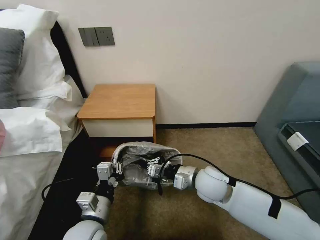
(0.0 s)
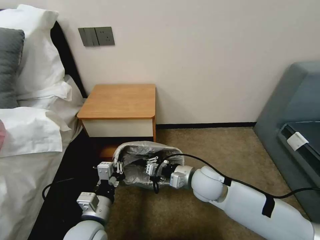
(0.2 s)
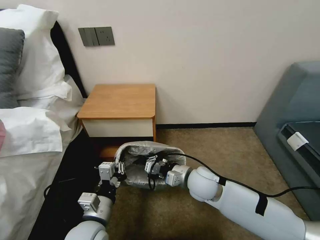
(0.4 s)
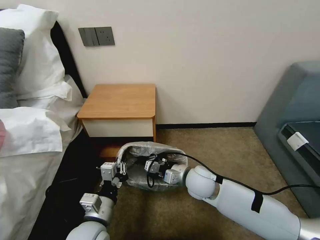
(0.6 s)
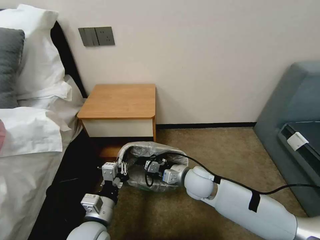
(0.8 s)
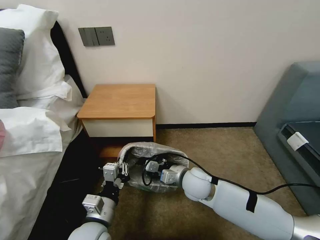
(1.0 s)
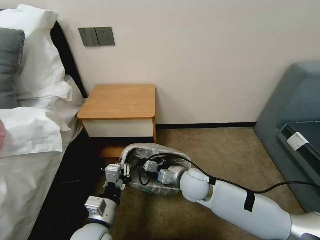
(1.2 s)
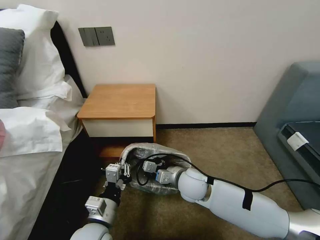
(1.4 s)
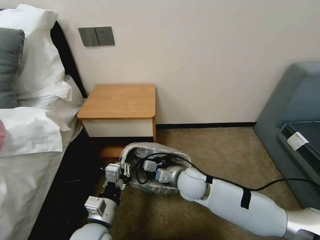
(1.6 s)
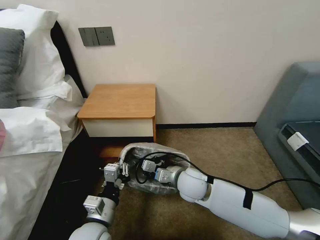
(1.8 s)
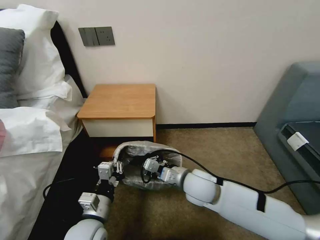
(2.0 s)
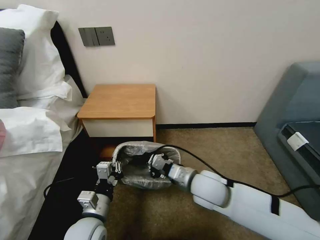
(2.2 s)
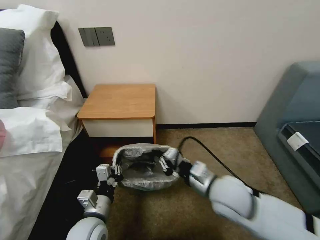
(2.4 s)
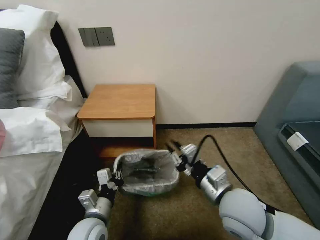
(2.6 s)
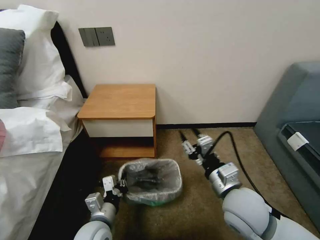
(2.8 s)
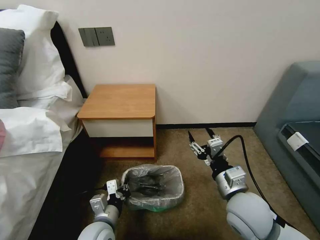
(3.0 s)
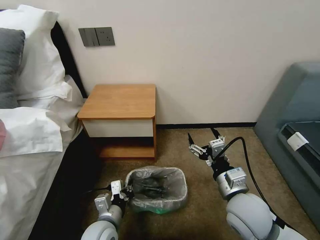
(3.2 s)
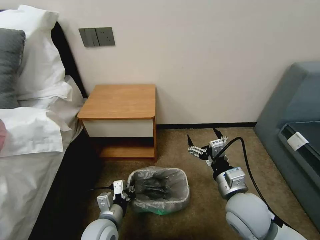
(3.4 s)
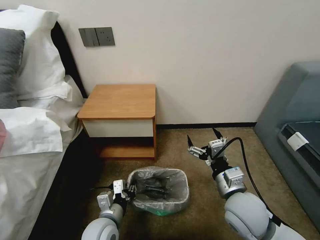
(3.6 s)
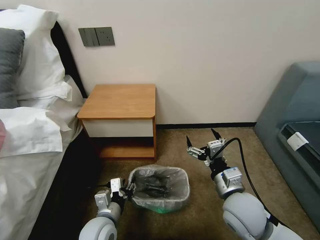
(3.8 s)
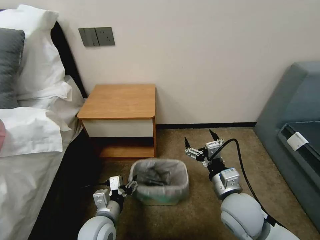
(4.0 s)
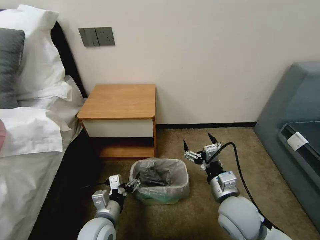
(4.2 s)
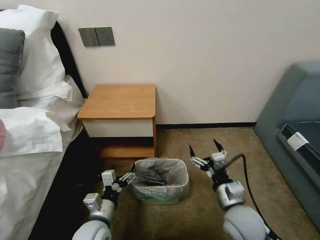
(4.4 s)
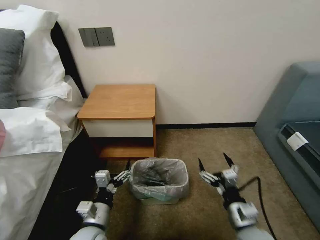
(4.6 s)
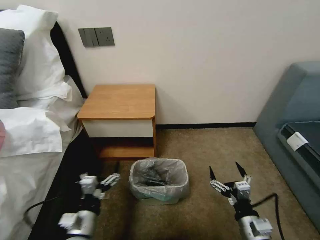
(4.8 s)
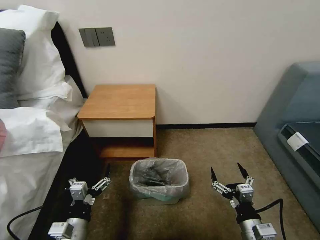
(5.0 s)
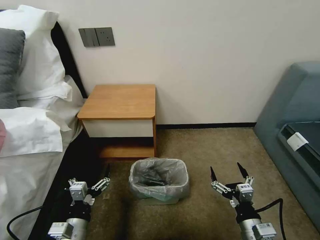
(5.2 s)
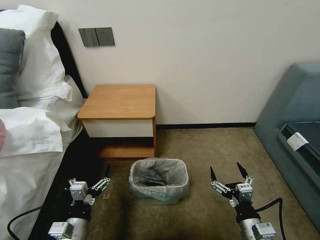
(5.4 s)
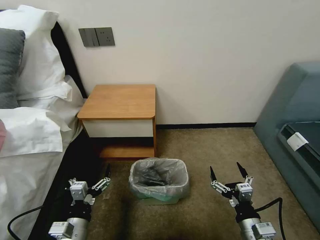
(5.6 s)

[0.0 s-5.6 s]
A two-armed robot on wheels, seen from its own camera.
Task of the whole recording: Pick up the garbage bag from the table and place it over the trash can.
0.0 to 1.4 s: The right gripper ends up about 5 cm from where it was.
1.4 to 2.8 s: The right gripper heads backward, upward and to the right, covering roughly 15 cm, and opens.
2.8 to 4.2 s: The right gripper is displaced downward by approximately 5 cm, and opens; the left gripper opens.
4.2 to 5.6 s: The left gripper heads to the left and backward, covering some 10 cm. The right gripper moves backward, downward and to the right, approximately 15 cm.

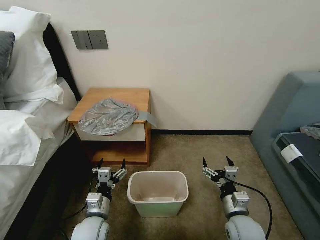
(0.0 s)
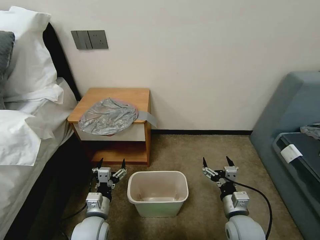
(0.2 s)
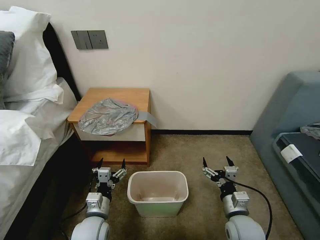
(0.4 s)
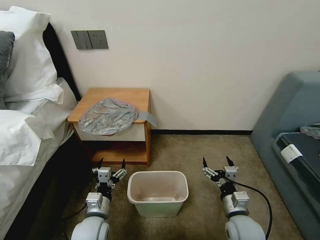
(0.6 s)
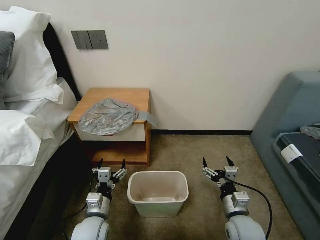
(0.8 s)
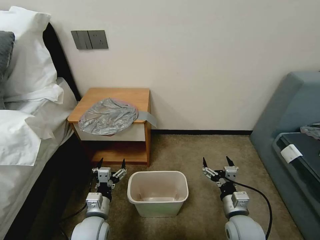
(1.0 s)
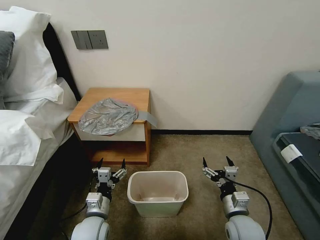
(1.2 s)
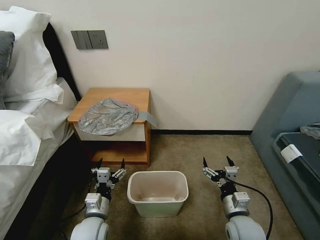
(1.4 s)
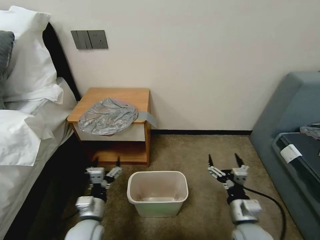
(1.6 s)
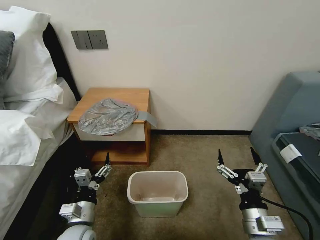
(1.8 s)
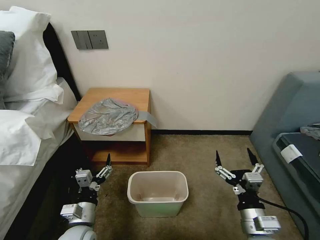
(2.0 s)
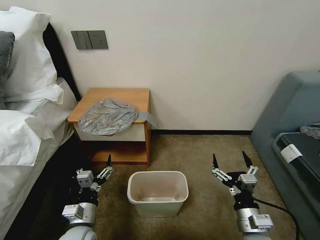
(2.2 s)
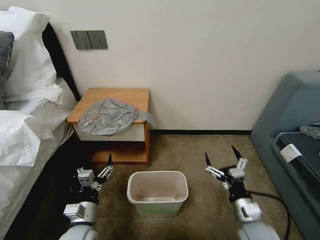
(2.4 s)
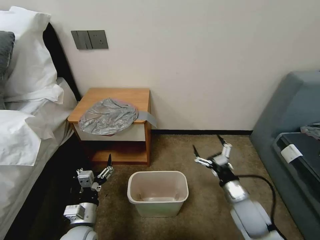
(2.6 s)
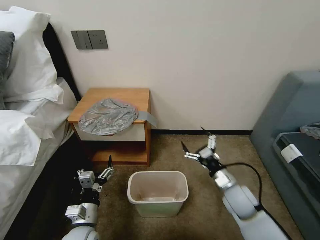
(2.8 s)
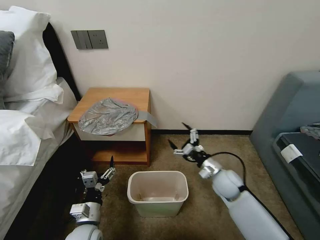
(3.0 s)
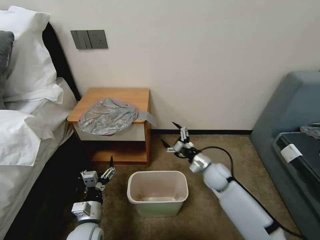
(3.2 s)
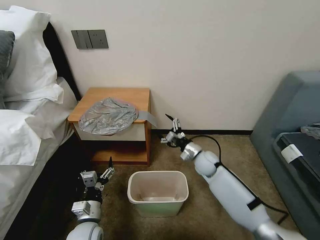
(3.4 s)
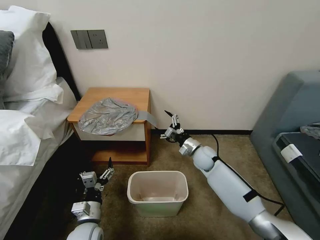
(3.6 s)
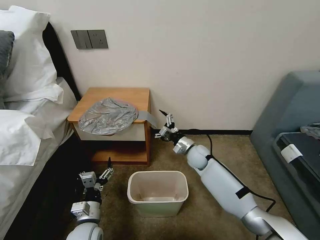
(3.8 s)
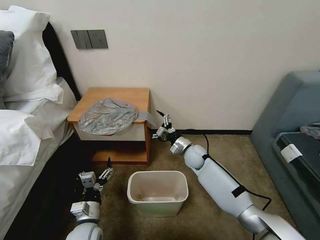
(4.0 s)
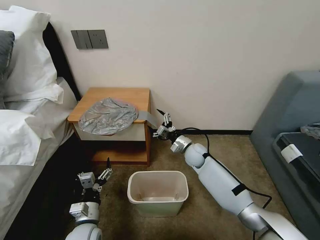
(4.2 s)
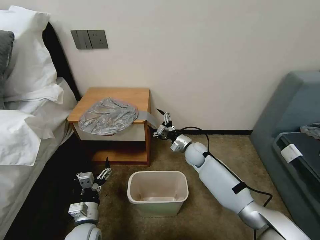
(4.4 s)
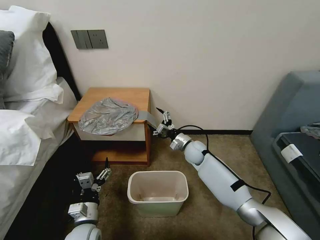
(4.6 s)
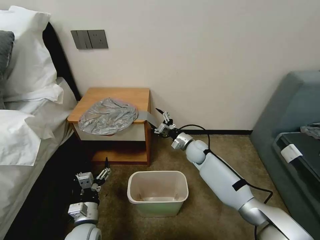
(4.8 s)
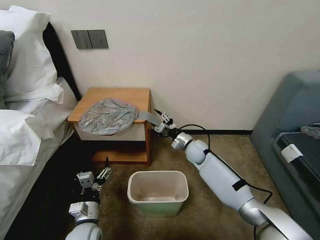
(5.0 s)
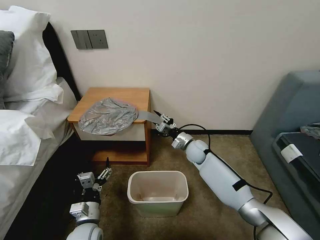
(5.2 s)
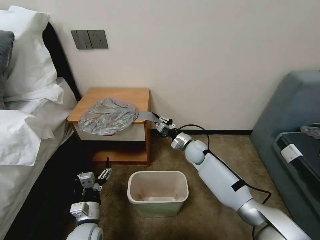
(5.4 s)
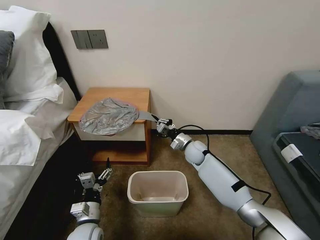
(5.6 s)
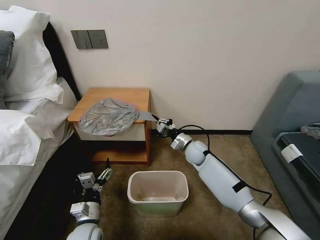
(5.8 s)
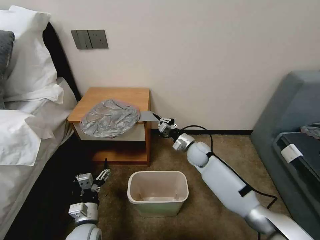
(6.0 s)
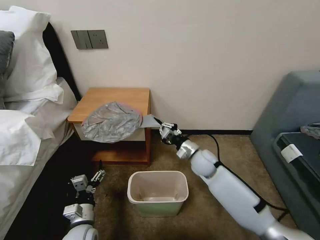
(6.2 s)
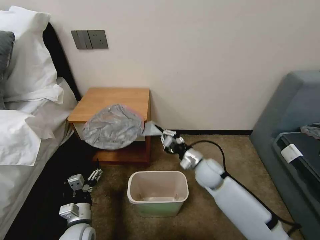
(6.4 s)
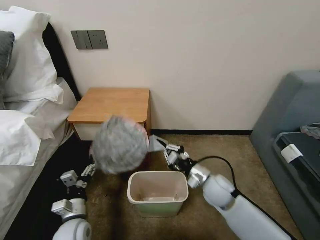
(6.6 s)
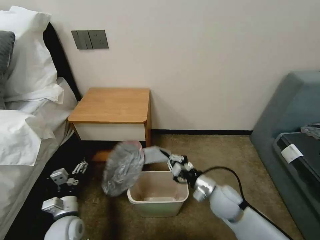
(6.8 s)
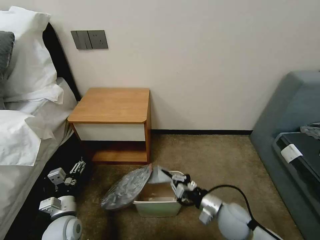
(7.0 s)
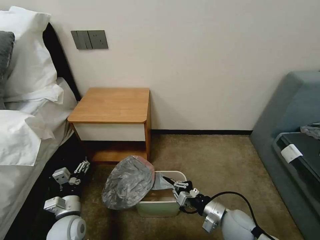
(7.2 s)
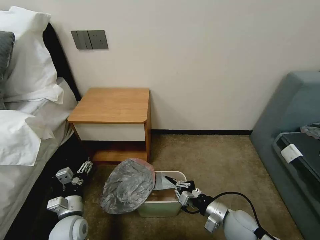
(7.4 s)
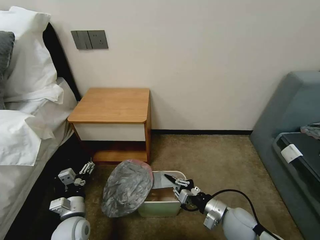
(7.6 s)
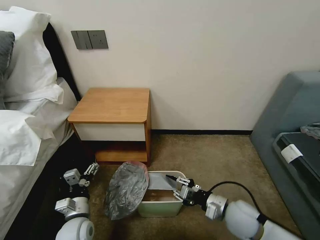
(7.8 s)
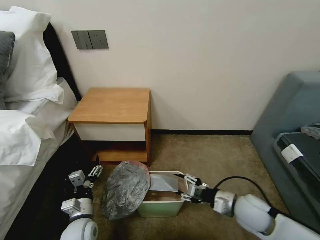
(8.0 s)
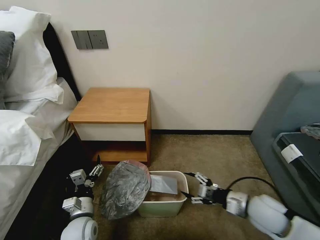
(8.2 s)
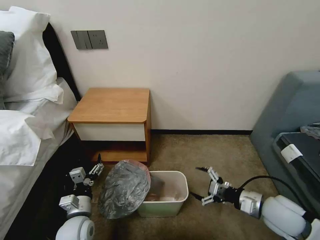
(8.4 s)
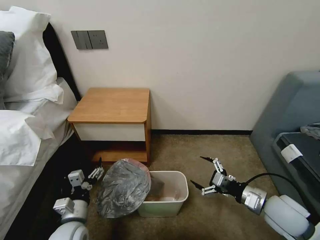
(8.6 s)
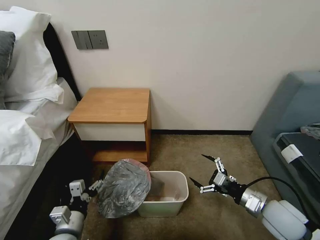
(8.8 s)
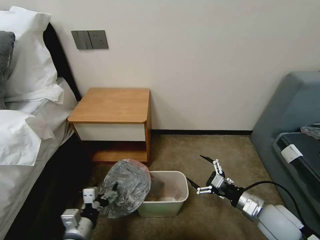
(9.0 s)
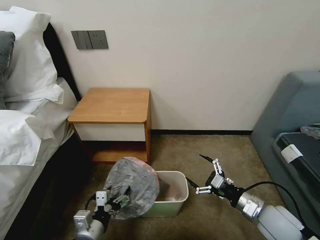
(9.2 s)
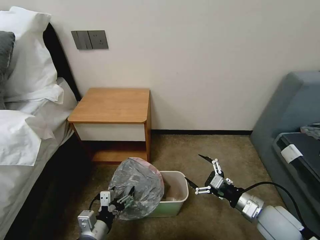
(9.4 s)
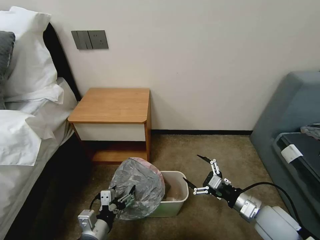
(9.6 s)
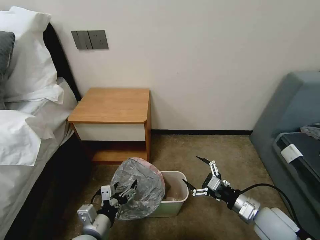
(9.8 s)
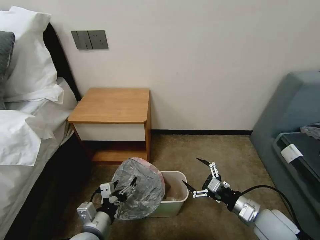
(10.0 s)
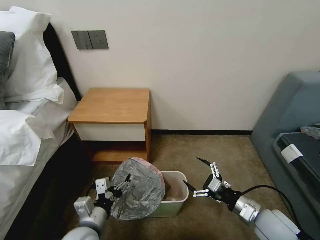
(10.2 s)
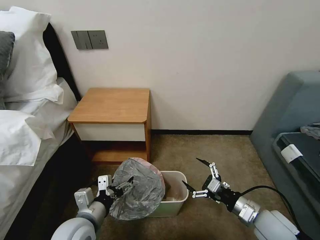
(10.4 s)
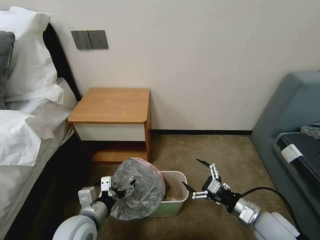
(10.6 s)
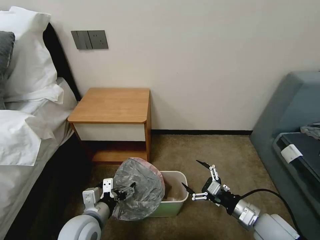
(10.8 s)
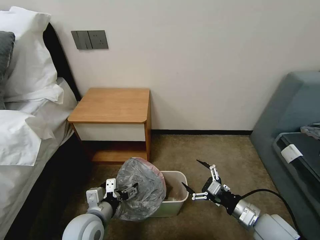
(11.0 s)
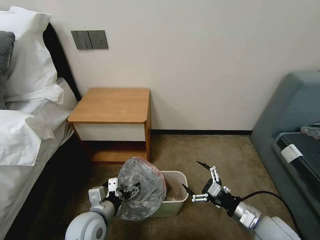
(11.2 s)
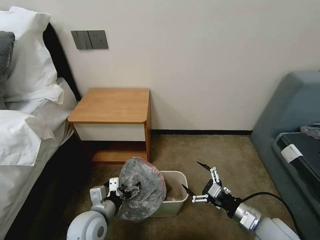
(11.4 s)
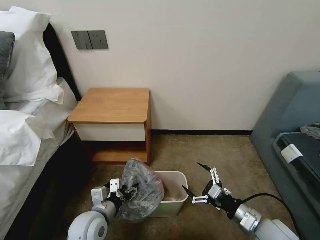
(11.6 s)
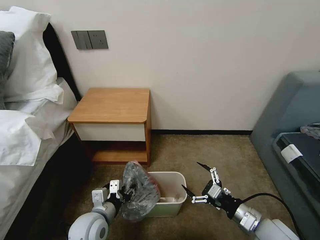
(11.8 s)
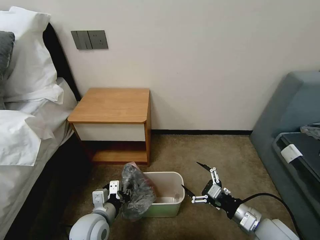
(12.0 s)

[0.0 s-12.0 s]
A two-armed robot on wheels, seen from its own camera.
Task of the whole recording: Pick up the garbage bag from the table and place it over the trash can.
1.6 to 3.0 s: The right gripper is displaced forward by about 15 cm.
3.0 to 4.4 s: The right gripper heads forward and to the left, covering roughly 15 cm.
4.4 to 6.0 s: The right gripper closes up.
6.0 to 7.6 s: The right gripper moves backward, roughly 25 cm.
7.6 to 9.0 s: The left gripper is displaced backward by about 5 cm, while the right gripper moves to the right and upward, about 10 cm, and opens.
9.0 to 10.4 s: The left gripper is displaced upward by about 5 cm.
10.4 to 12.0 s: The left gripper changes place by some 5 cm, and closes.

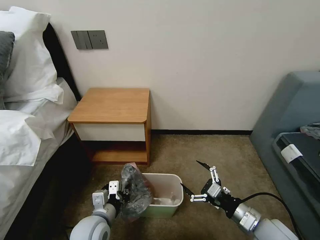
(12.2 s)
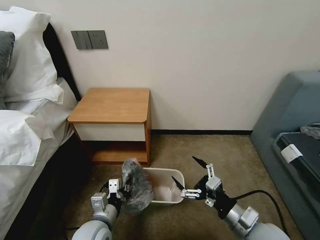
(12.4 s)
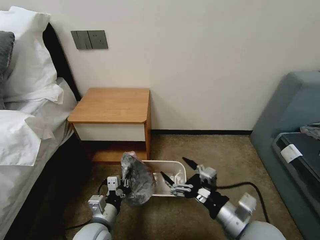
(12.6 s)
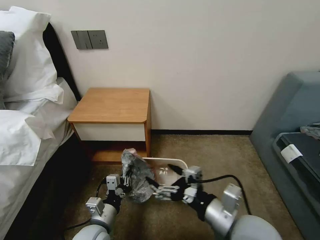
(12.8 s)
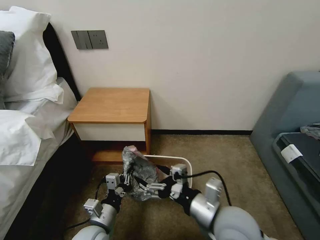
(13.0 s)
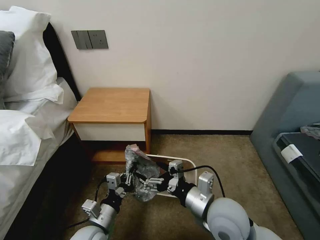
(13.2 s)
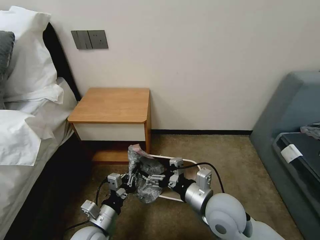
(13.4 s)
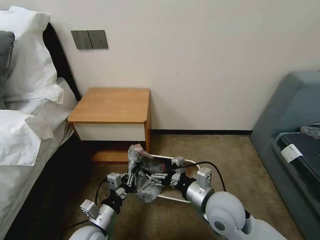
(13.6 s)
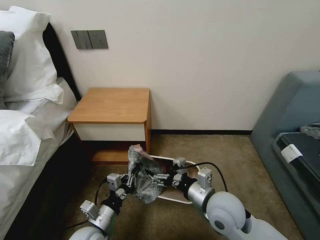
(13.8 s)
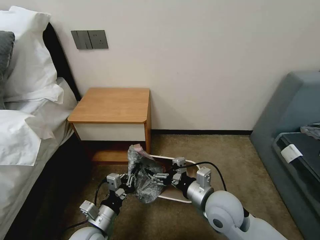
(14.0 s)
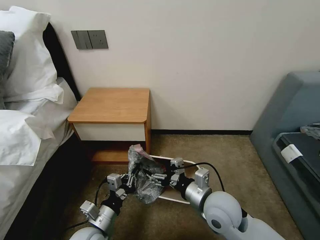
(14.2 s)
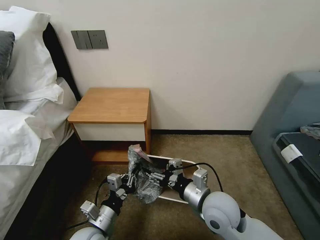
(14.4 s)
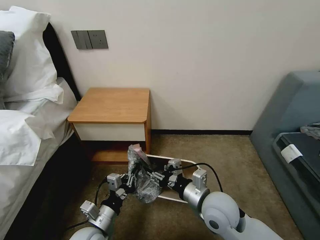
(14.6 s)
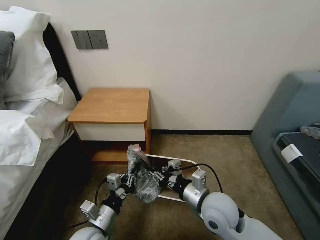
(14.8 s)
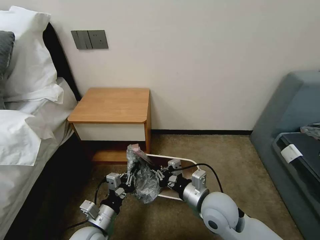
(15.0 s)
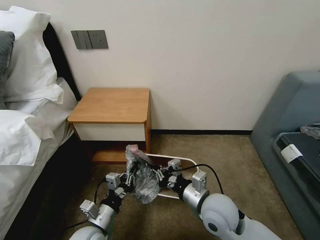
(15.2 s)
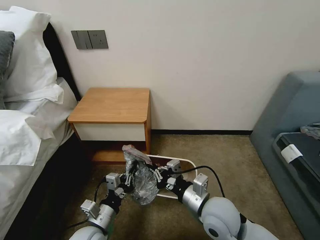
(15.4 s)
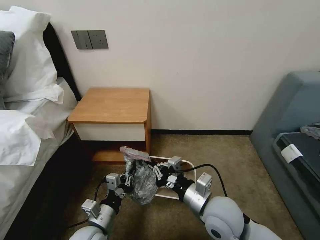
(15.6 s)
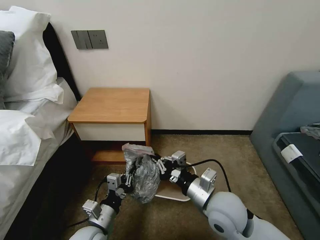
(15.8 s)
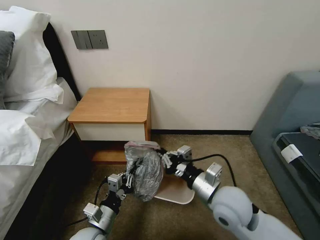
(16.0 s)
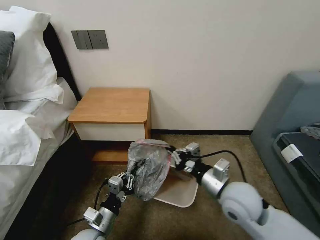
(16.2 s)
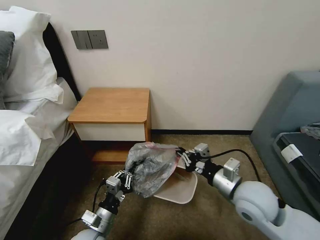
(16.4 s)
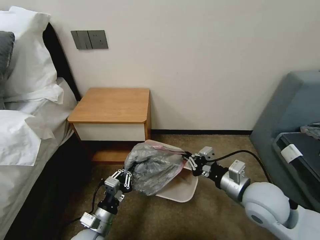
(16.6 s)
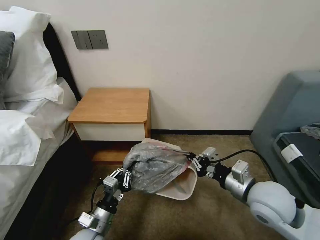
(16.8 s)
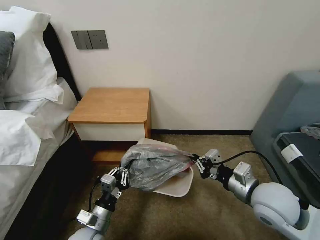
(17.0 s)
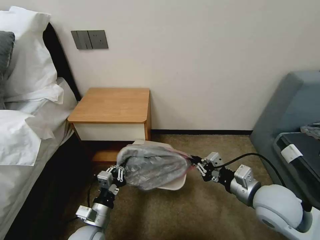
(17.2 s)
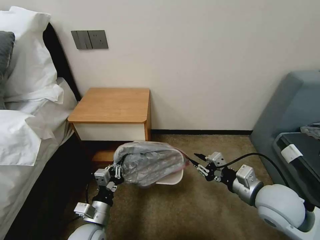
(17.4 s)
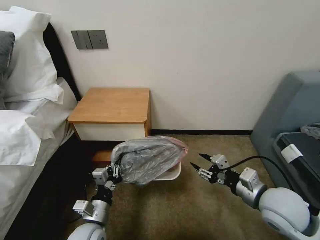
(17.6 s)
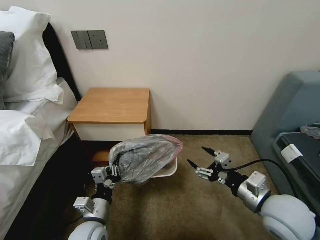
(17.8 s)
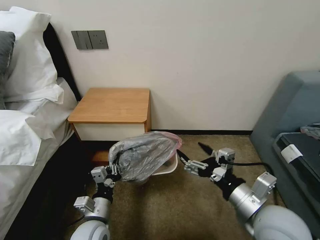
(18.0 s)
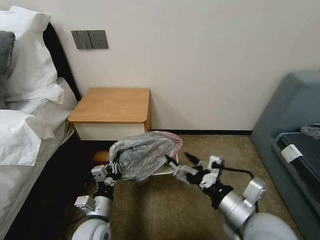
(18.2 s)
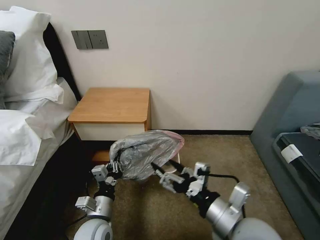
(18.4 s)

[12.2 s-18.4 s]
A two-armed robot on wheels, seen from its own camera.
Task of the whole recording: Pick up the garbage bag from the table and place it over the trash can.
12.2 to 13.8 s: The right gripper travels to the left and upward by some 15 cm.
13.8 to 15.4 s: The right gripper closes up.
15.4 to 16.8 s: The right gripper travels to the right and upward by approximately 15 cm.
16.8 to 18.4 s: The right gripper is displaced backward and to the left by about 10 cm, and opens up.
